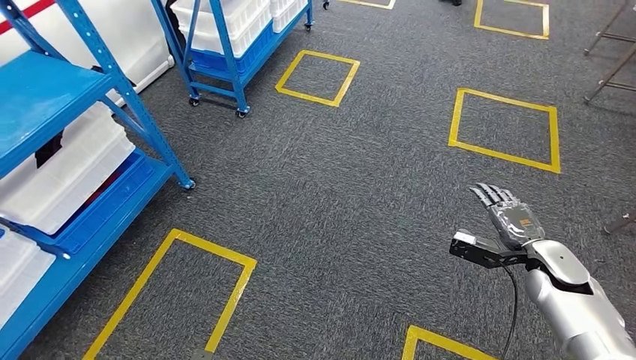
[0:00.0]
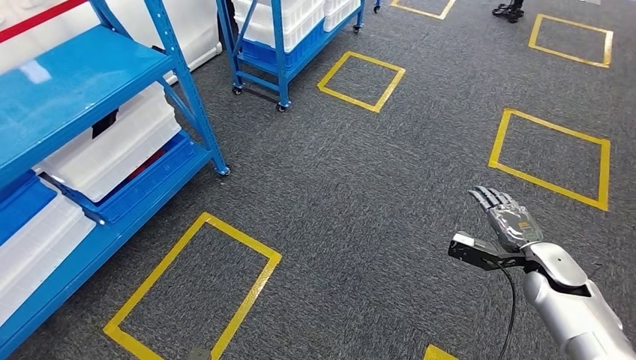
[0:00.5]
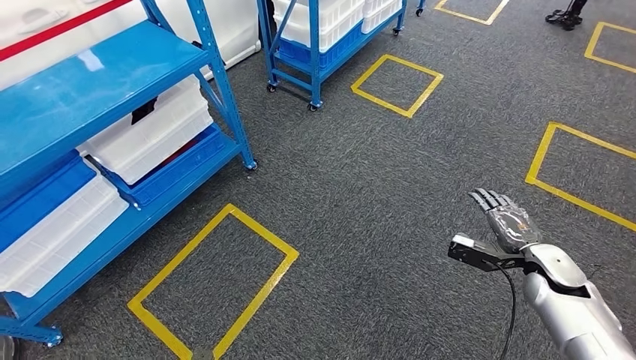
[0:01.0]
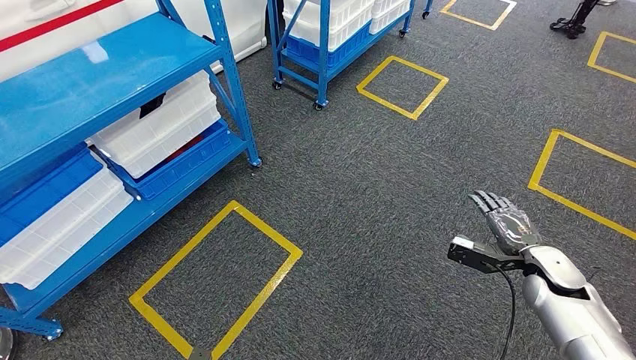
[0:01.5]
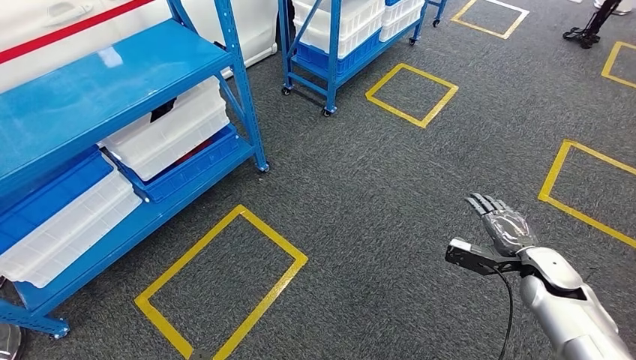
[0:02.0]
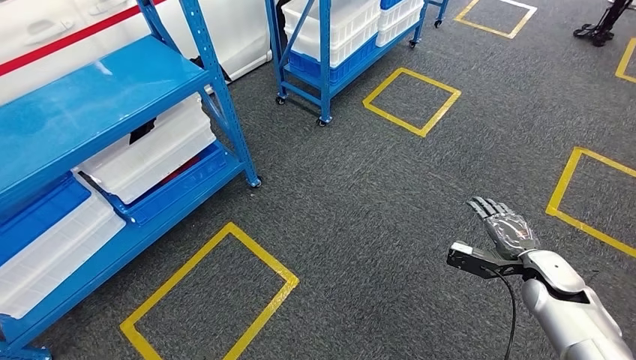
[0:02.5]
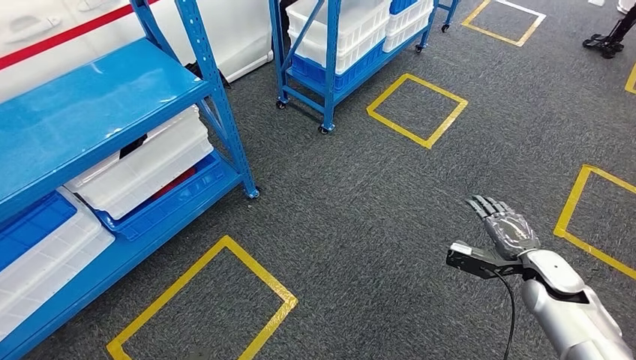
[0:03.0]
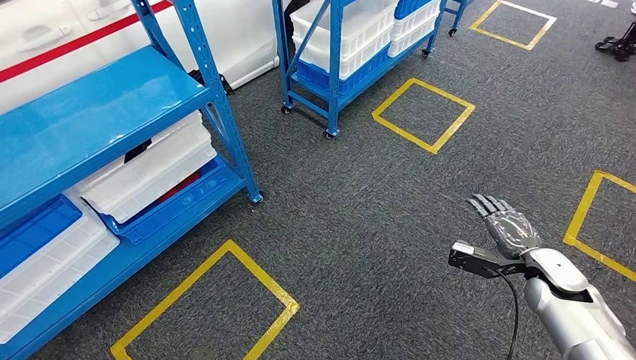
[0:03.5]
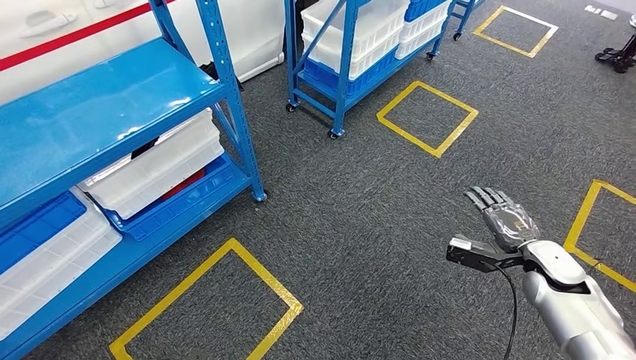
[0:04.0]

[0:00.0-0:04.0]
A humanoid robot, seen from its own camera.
Step, 0:00.0 to 0:04.0: Move to the initial position of the shelf.
